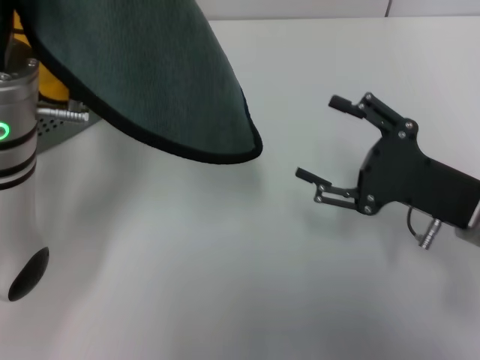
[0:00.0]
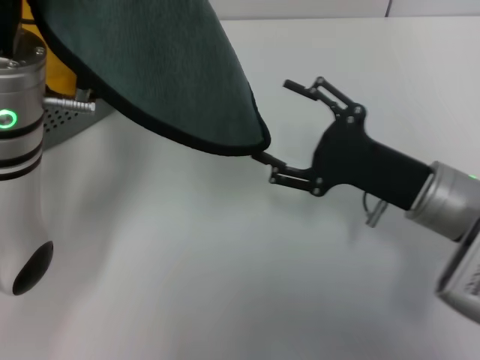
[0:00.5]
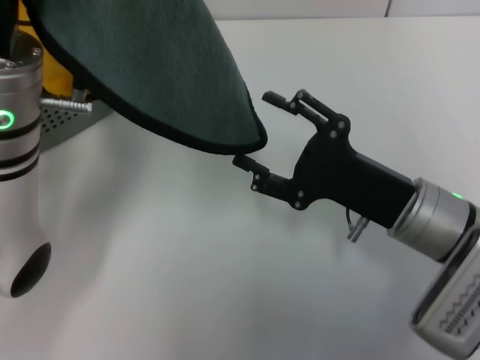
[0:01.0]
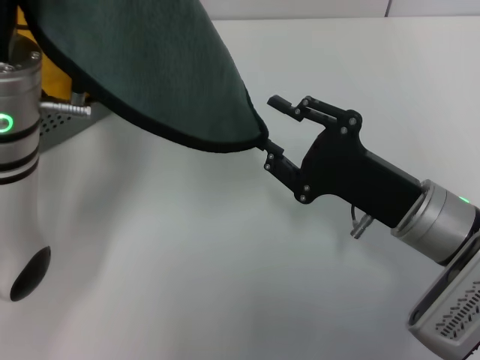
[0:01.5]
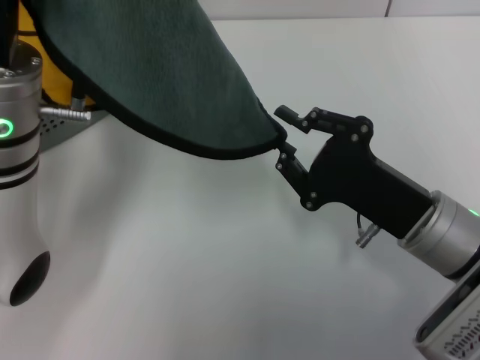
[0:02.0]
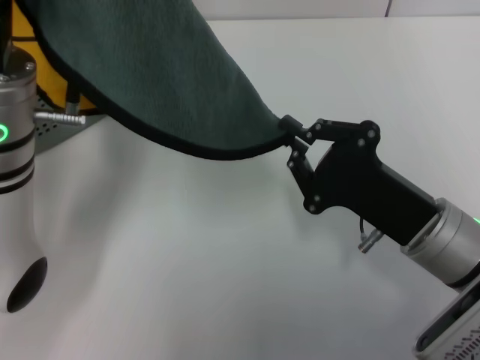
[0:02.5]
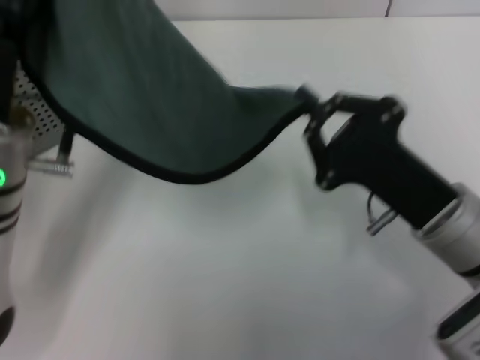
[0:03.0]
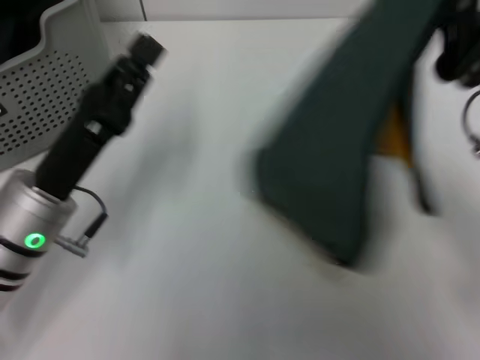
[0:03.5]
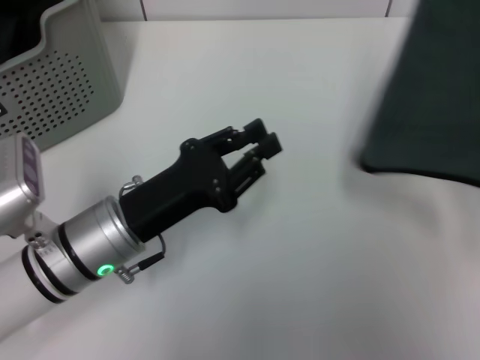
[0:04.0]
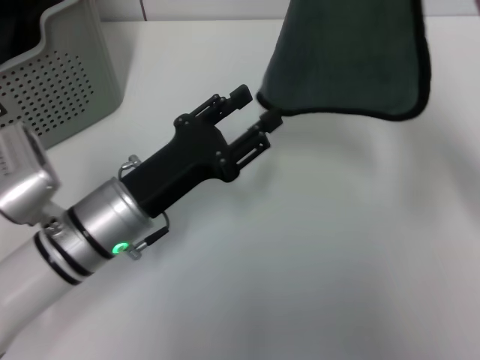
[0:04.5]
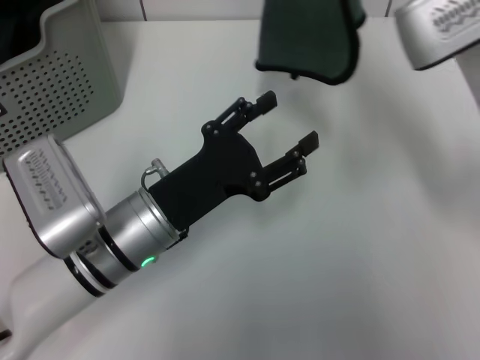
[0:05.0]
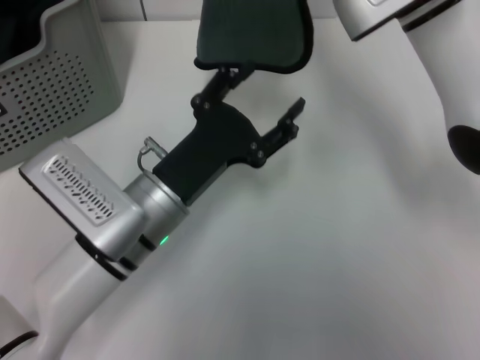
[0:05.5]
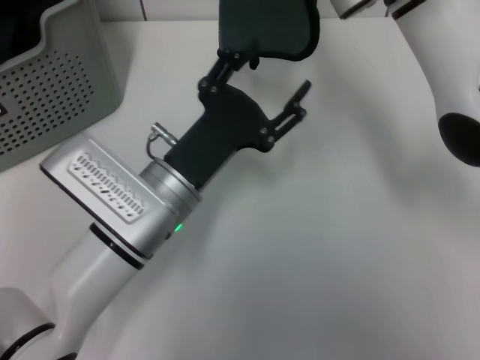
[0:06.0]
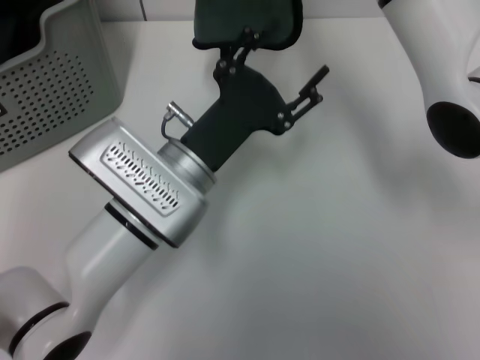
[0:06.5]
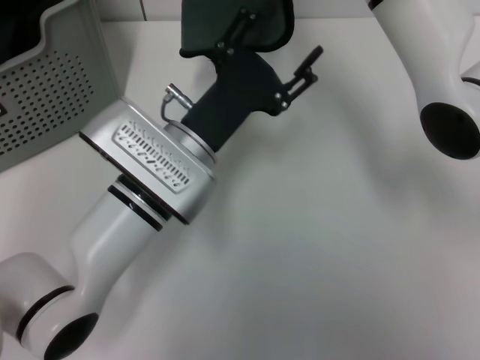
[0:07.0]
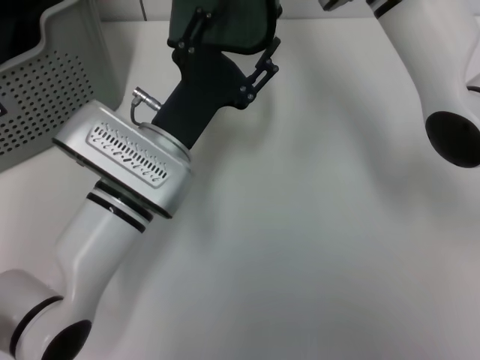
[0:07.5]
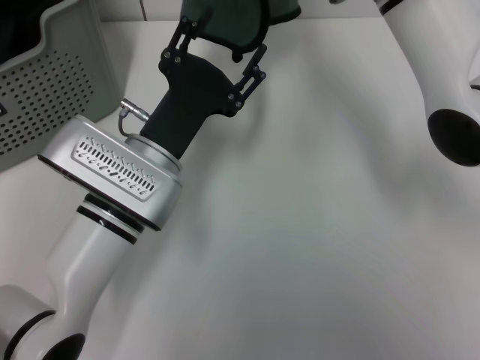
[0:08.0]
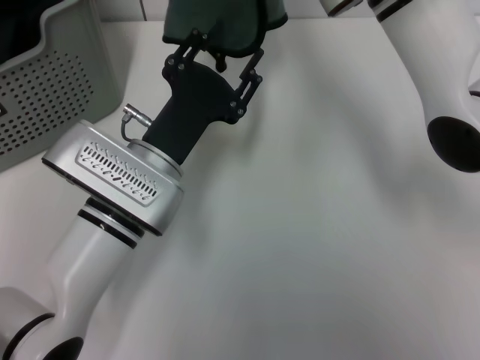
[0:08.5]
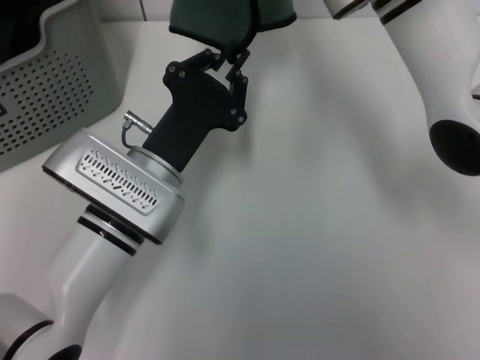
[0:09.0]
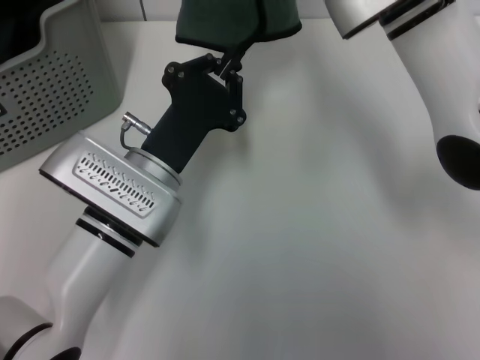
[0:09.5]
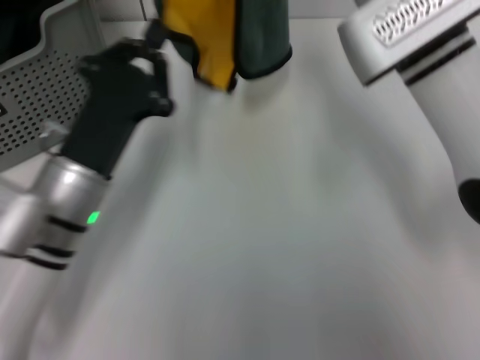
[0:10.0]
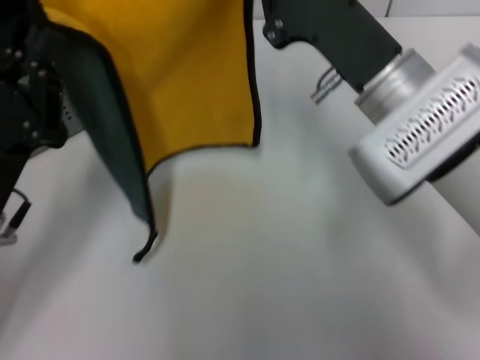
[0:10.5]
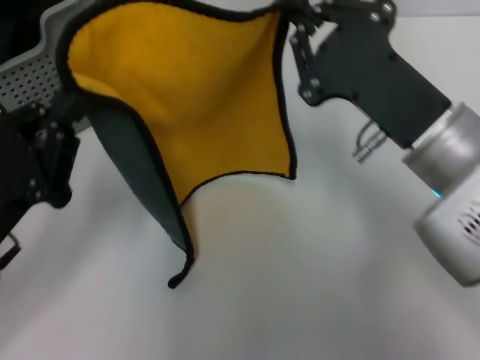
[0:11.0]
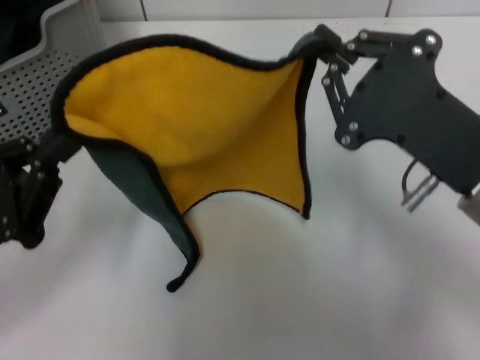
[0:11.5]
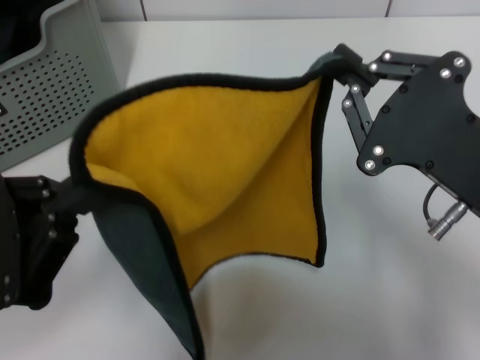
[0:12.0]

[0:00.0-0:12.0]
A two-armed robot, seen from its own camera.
Task of the whole recording: pick up the towel from the storage box and lay it flat on the table.
Step, 0:00.0 to 0:02.5: Spread the towel flat with the left gripper.
0:00.0 to 0:02.0: The right gripper moves to the left, about 5 cm, and closes up.
0:02.0 to 0:04.0: The right gripper moves upward and forward, about 15 cm. Meanwhile the left gripper travels downward by approximately 10 cm.
0:04.0 to 0:06.0: The left gripper is displaced to the right by approximately 5 cm, and opens its fingers; the right gripper goes roughly 15 cm to the left and forward.
0:08.0 to 0:10.0: The right gripper shifts by roughly 5 cm. Meanwhile the left gripper goes roughly 5 cm to the left, and closes up.
0:10.0 to 0:12.0: The left gripper is displaced to the left and backward by some 15 cm, while the right gripper travels backward and to the right by some 20 cm.

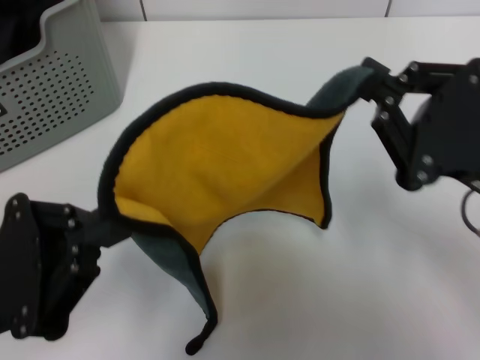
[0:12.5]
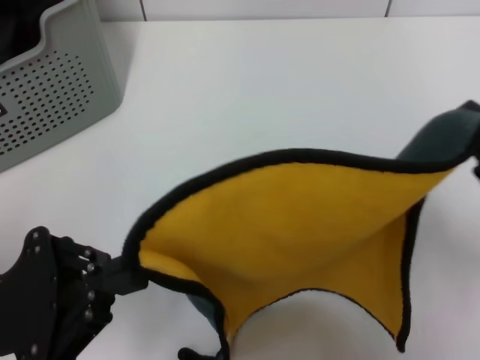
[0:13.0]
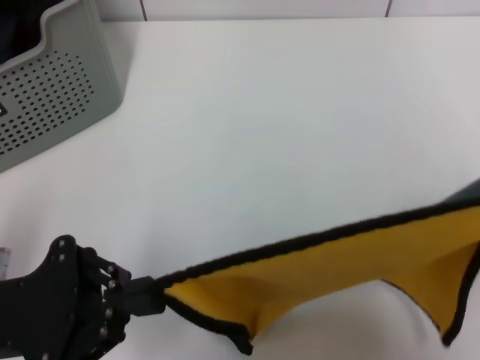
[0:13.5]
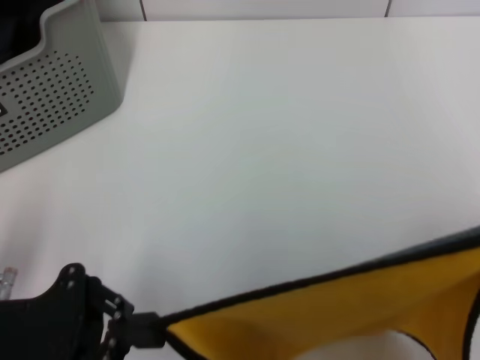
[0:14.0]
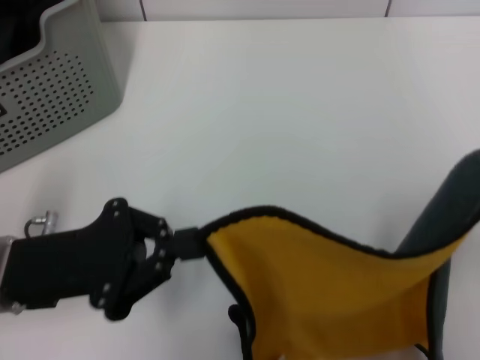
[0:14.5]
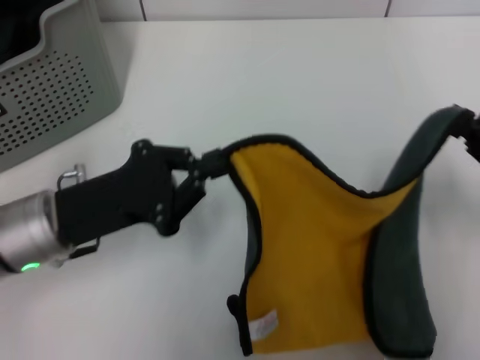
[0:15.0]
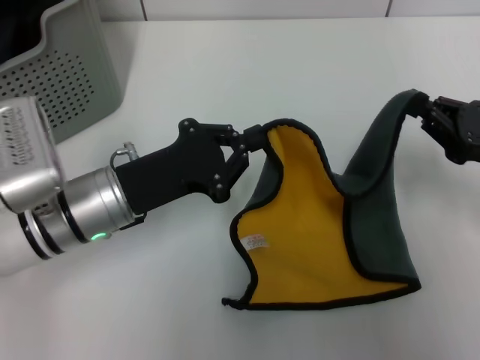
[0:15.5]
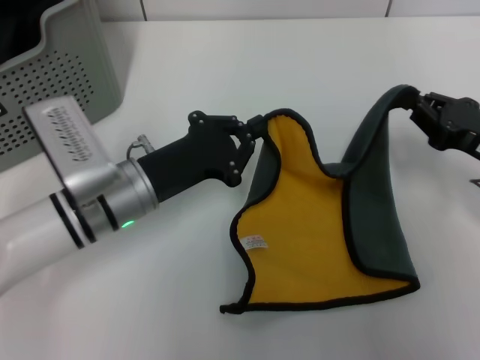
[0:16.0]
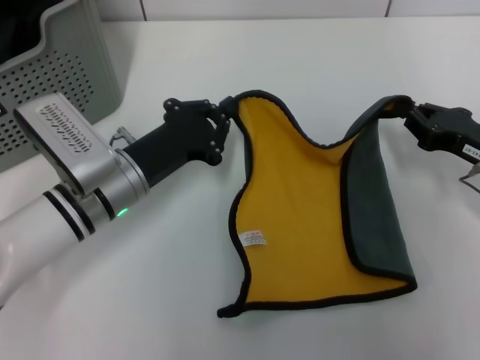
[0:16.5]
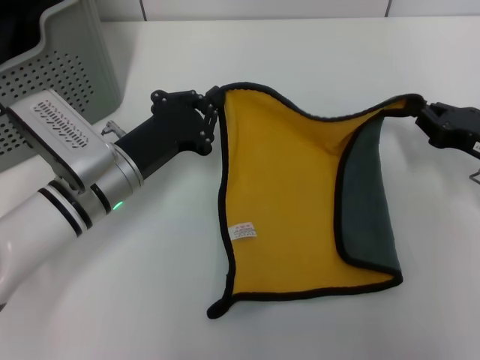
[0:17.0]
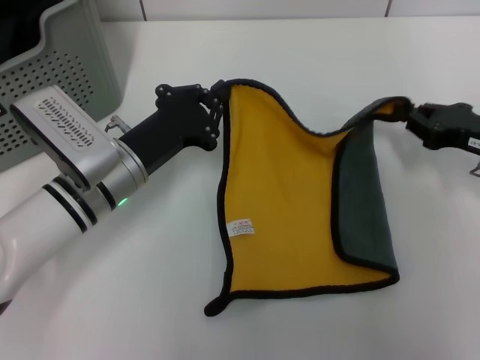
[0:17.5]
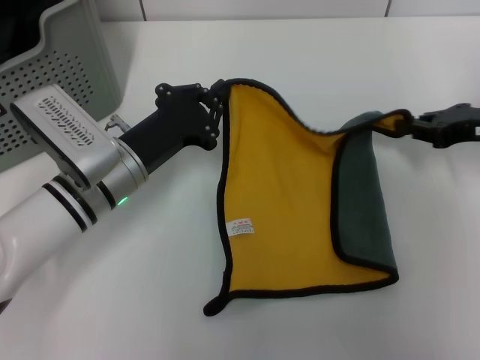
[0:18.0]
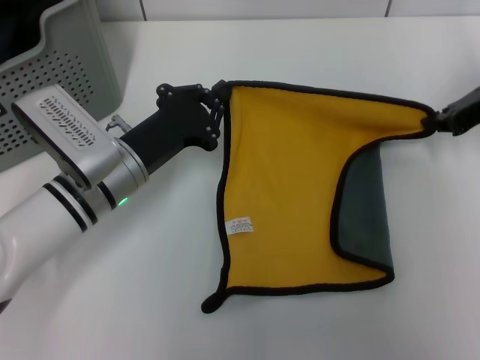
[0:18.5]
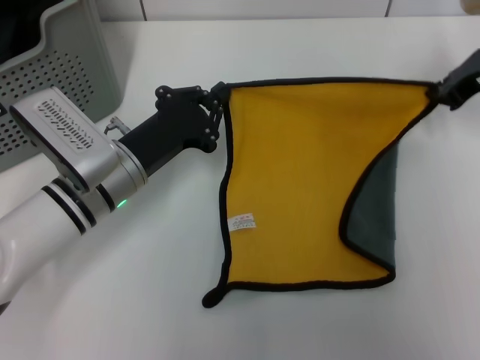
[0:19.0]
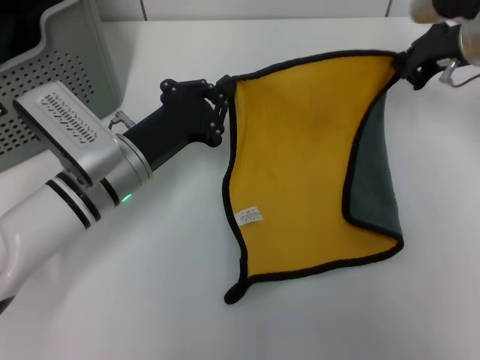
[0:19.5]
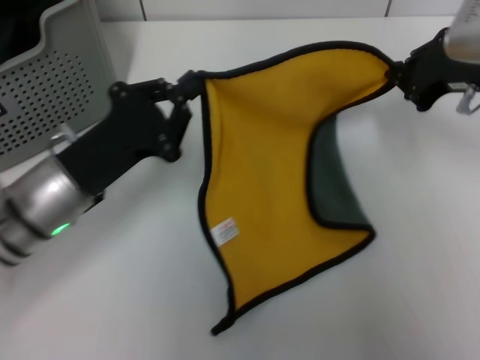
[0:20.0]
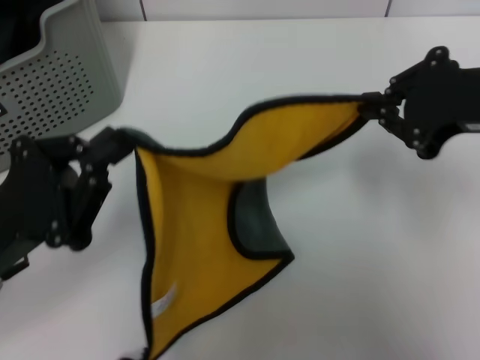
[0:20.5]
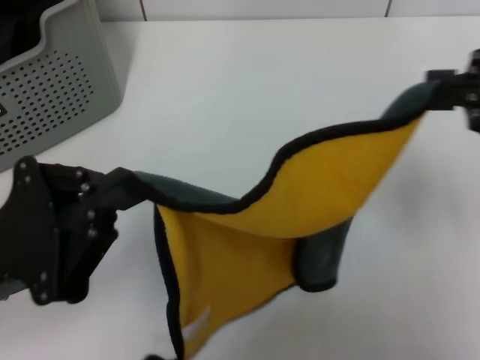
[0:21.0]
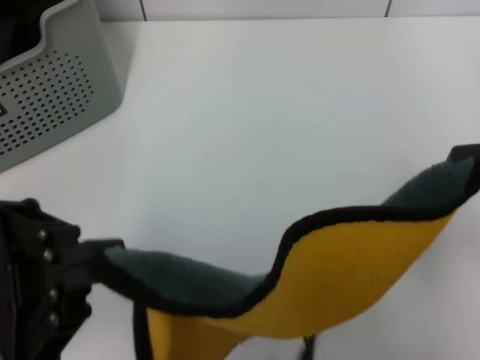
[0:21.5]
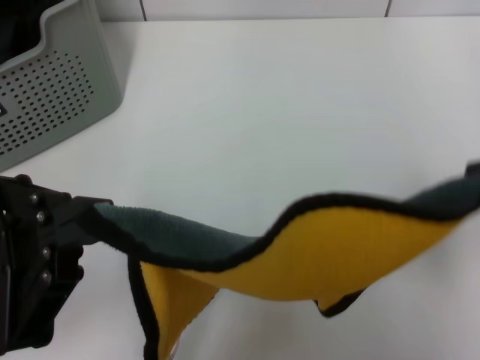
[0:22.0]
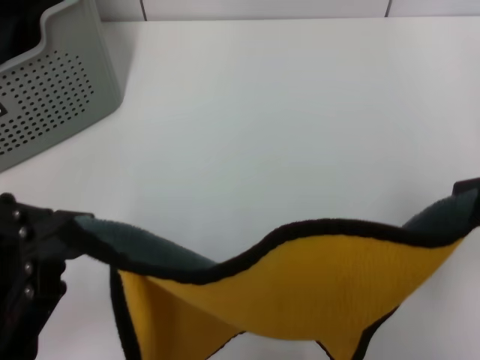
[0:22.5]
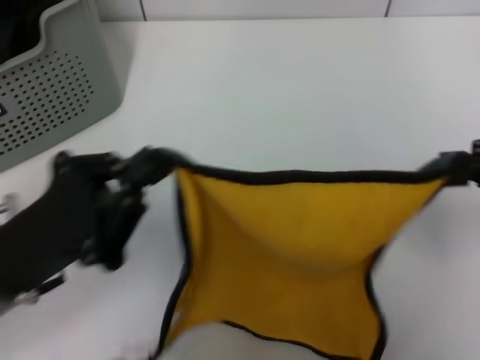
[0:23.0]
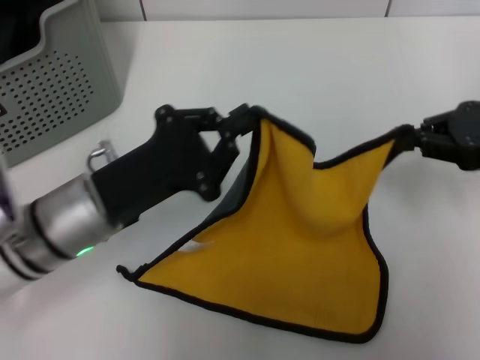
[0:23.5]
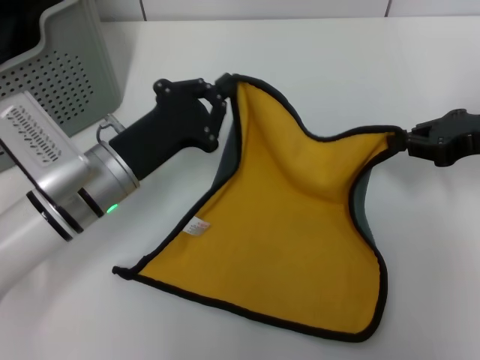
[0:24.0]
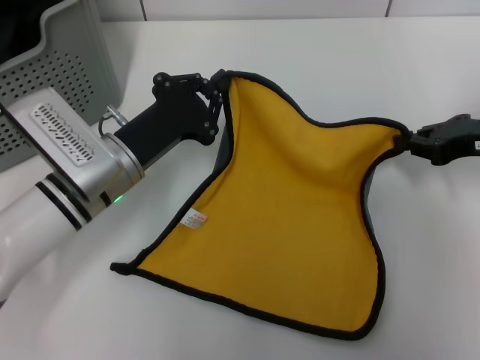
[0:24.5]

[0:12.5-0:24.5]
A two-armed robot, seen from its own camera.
Task of the whole recording: pick up the towel from the storage box and lay it flat on the table.
0:12.5 to 0:14.5: The right gripper shifts about 10 cm to the right and downward. The left gripper moves approximately 5 cm.
0:14.5 to 0:16.5: The left gripper is displaced forward and to the right by roughly 10 cm. Meanwhile the right gripper goes about 10 cm forward.
0:16.5 to 0:18.5: The right gripper goes about 15 cm upward and forward.
0:18.5 to 0:20.5: The right gripper moves backward, upward and to the left, roughly 15 cm; the left gripper goes approximately 15 cm backward and to the left.
0:20.5 to 0:22.5: The right gripper moves to the right, approximately 5 cm, while the left gripper shifts by about 5 cm.
0:22.5 to 0:24.5: The left gripper moves forward, to the right and downward, roughly 20 cm; the right gripper heads downward and forward, covering approximately 20 cm.

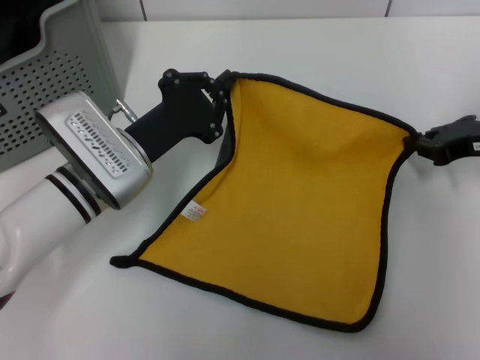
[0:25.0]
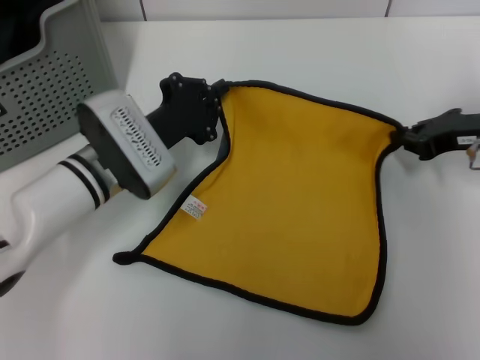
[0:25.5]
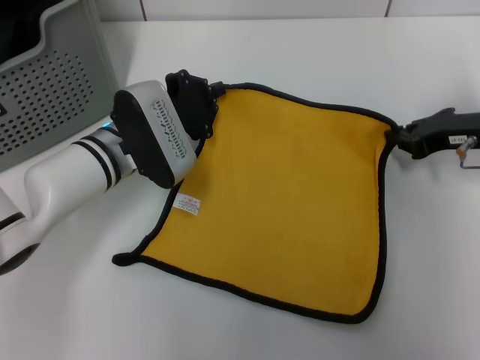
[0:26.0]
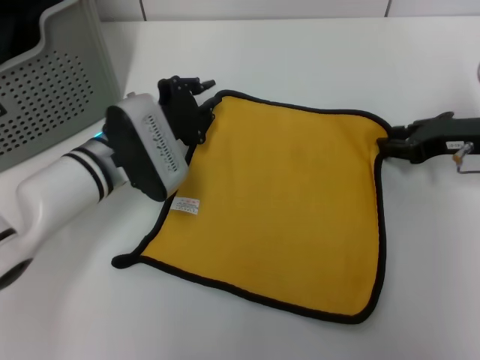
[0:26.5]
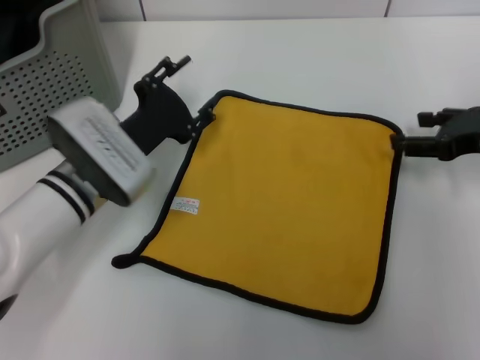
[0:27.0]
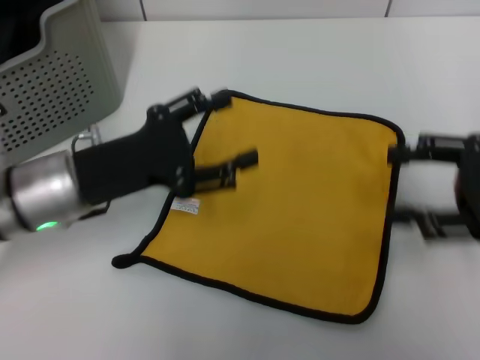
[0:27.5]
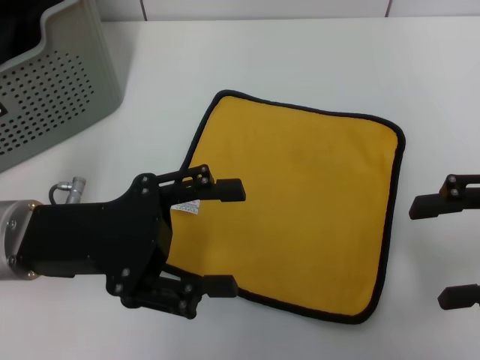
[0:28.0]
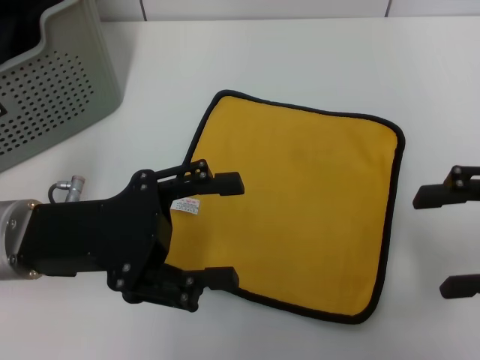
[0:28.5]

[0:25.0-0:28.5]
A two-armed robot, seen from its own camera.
Task of the whole recording: pick up the towel from the storage box and lay it flat on the table.
0:25.0 to 0:27.0: The right gripper opens its fingers. Meanwhile the left gripper opens its fingers.
0:27.0 to 0:28.5: Both grippers travel together backward and upward, roughly 10 cm. The left gripper opens its fingers.
